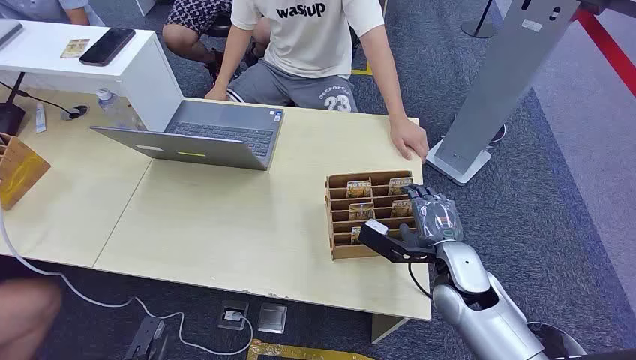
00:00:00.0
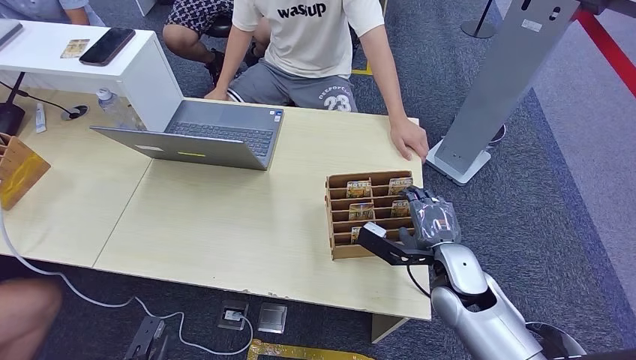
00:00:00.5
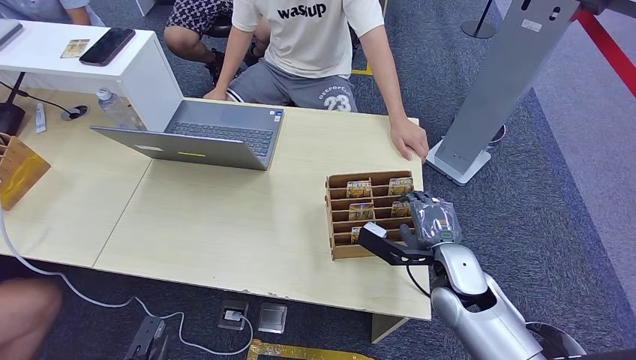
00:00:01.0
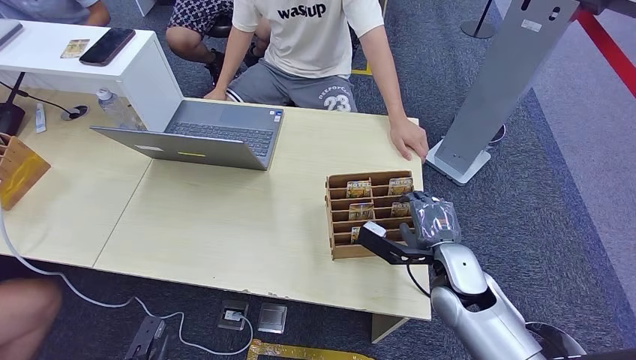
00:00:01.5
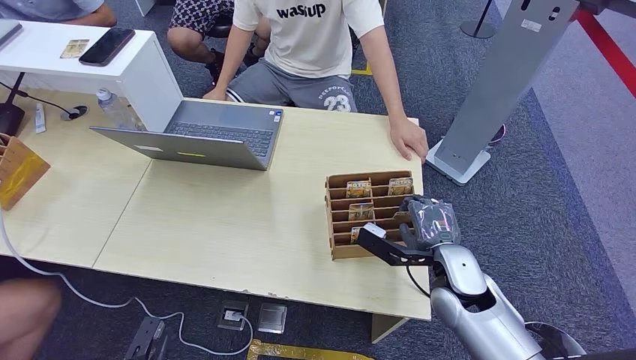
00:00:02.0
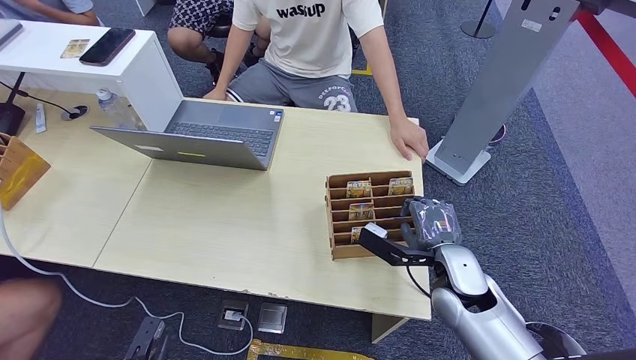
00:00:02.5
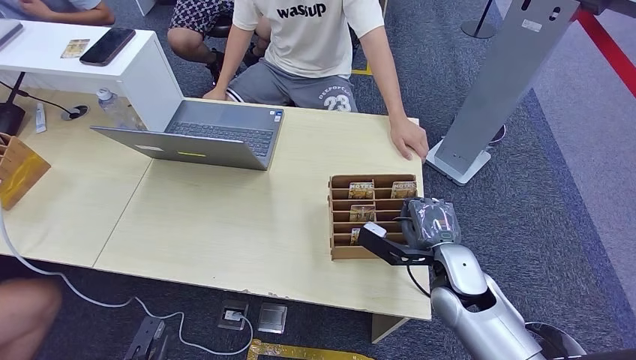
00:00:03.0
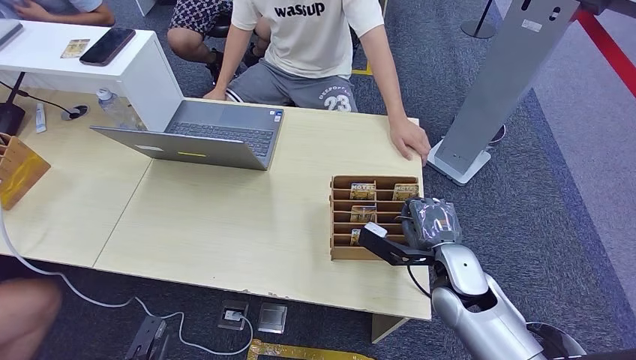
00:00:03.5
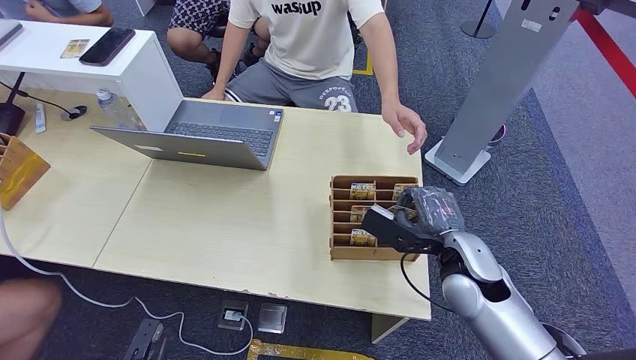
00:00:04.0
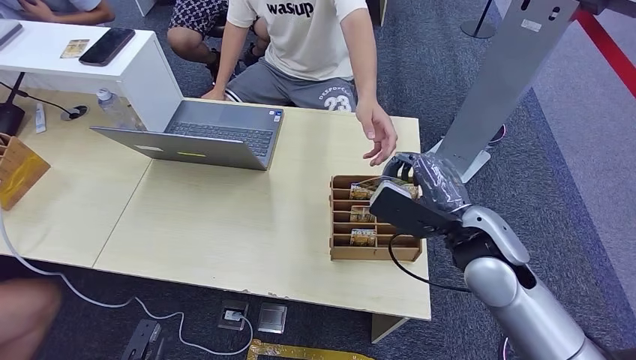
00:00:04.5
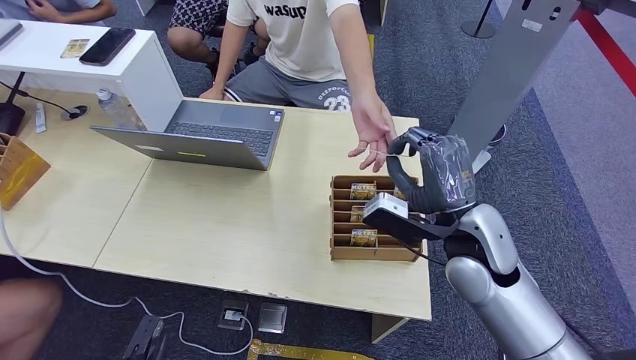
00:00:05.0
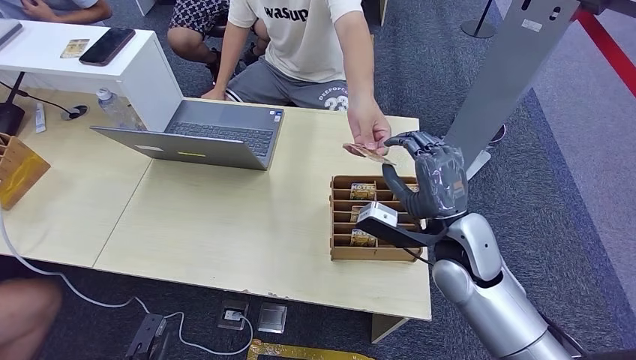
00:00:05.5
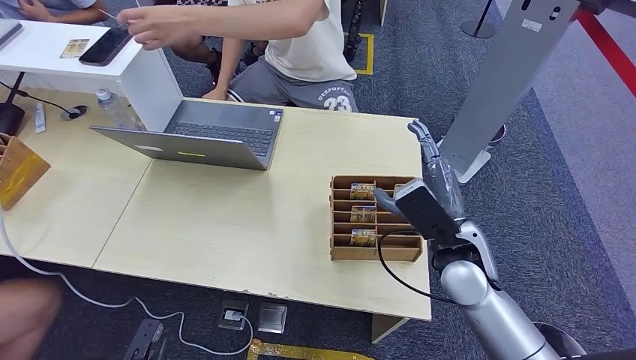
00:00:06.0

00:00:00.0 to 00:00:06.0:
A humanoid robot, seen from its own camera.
Step, 00:00:00.0 to 00:00:04.0: Pick up the key card from the card box.
Step, 00:00:04.5 to 00:00:06.0: Hand the key card to the target.
00:00:02.0 to 00:00:04.0: The hands stay close to where they were, moving slightly.
00:00:04.0 to 00:00:06.0: The right hand reaches about 10 cm upward, then returns.
